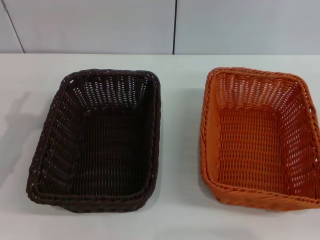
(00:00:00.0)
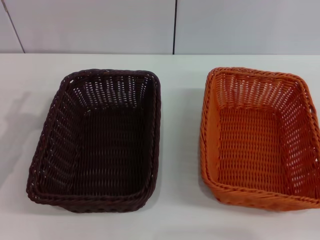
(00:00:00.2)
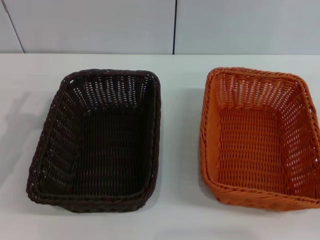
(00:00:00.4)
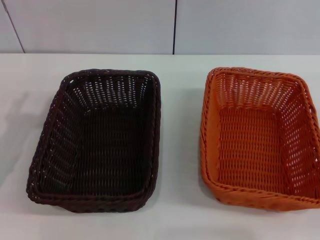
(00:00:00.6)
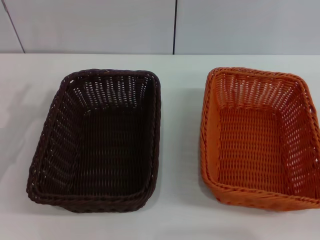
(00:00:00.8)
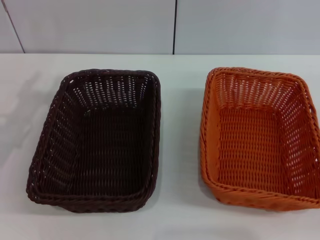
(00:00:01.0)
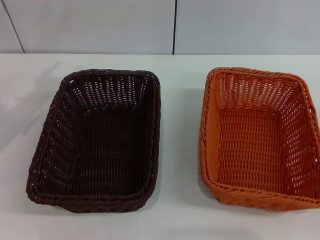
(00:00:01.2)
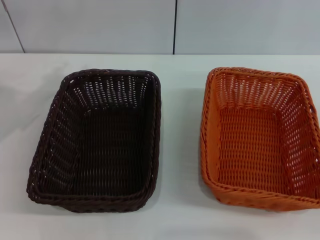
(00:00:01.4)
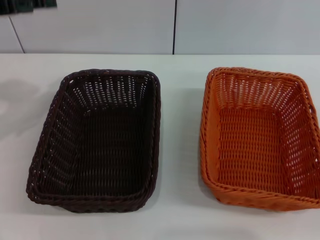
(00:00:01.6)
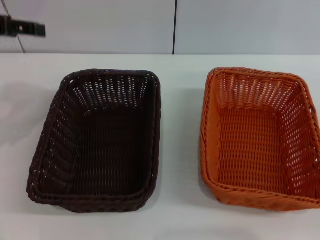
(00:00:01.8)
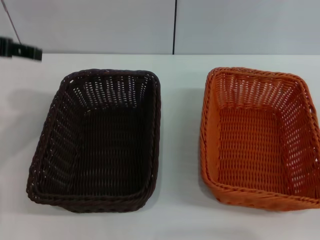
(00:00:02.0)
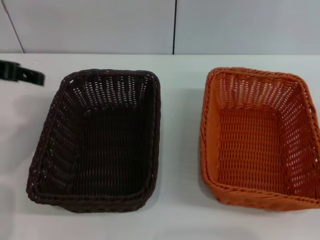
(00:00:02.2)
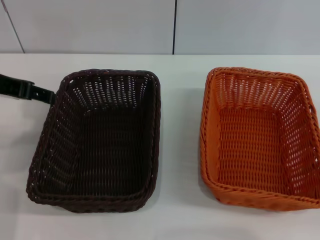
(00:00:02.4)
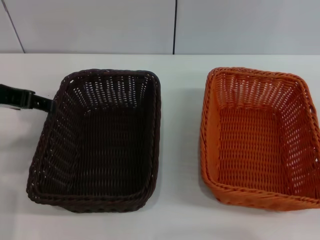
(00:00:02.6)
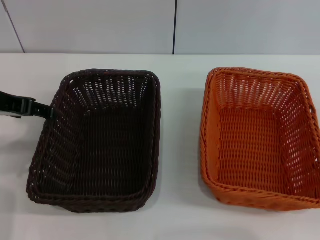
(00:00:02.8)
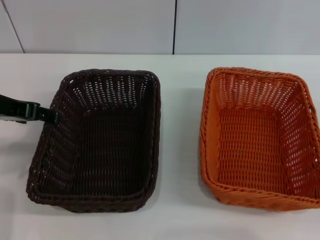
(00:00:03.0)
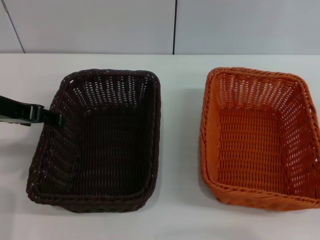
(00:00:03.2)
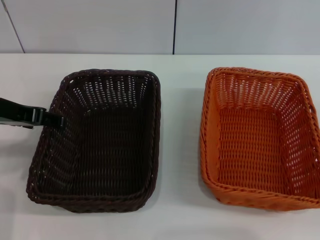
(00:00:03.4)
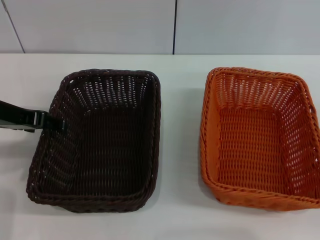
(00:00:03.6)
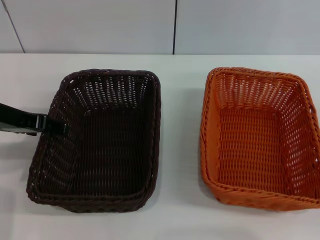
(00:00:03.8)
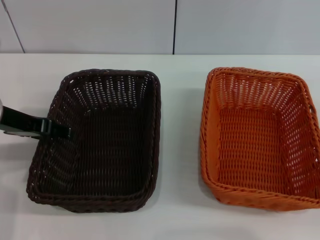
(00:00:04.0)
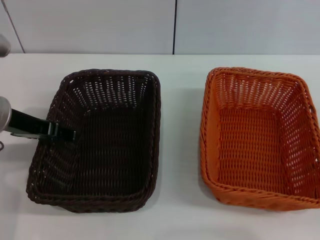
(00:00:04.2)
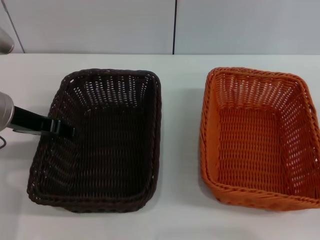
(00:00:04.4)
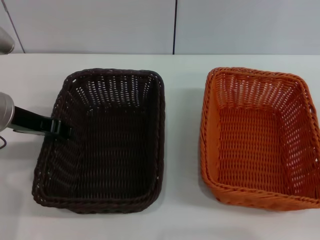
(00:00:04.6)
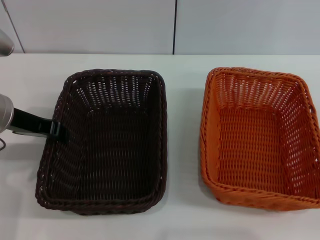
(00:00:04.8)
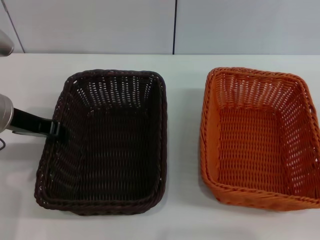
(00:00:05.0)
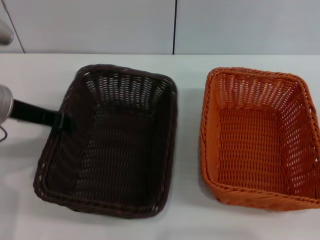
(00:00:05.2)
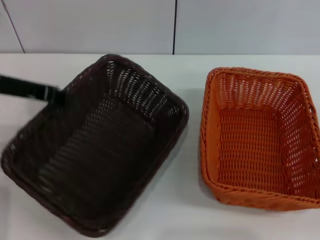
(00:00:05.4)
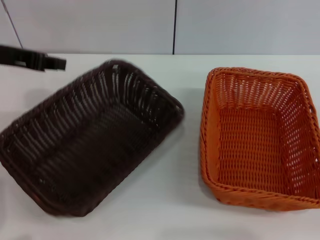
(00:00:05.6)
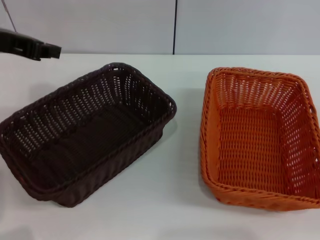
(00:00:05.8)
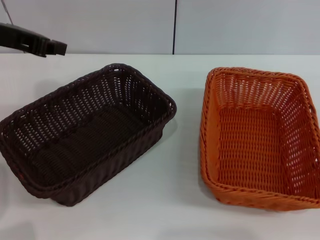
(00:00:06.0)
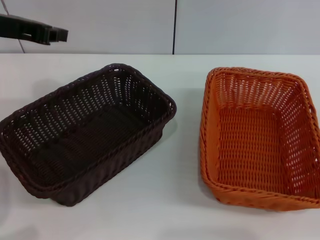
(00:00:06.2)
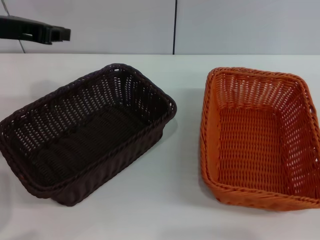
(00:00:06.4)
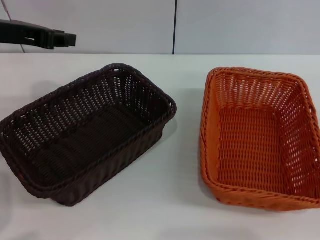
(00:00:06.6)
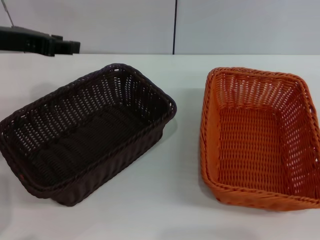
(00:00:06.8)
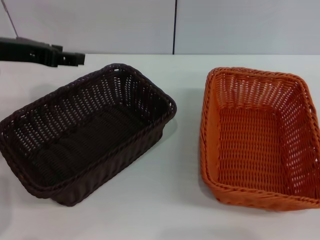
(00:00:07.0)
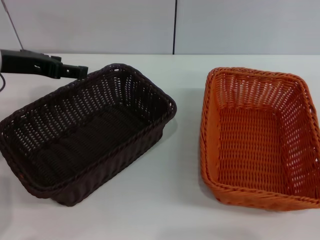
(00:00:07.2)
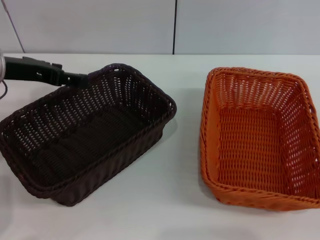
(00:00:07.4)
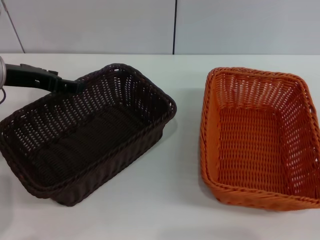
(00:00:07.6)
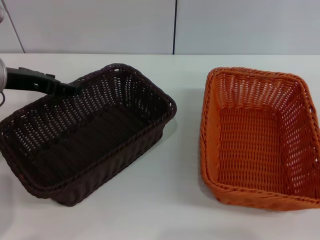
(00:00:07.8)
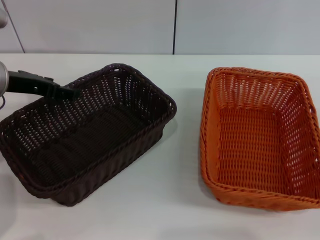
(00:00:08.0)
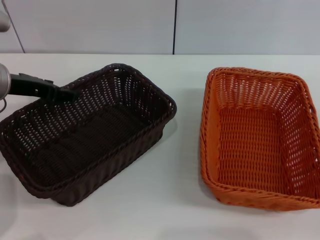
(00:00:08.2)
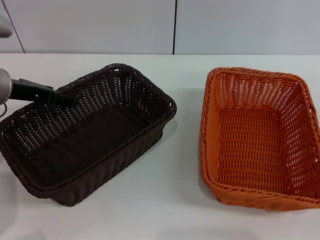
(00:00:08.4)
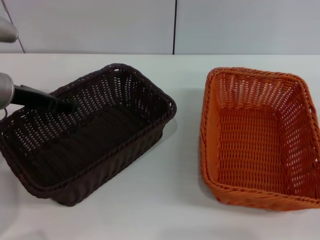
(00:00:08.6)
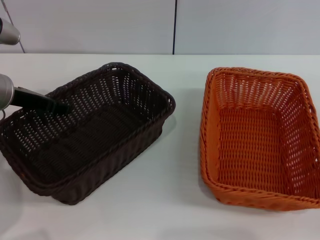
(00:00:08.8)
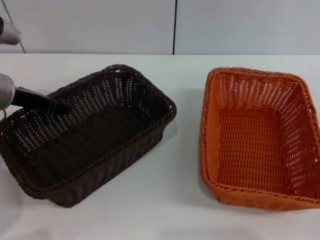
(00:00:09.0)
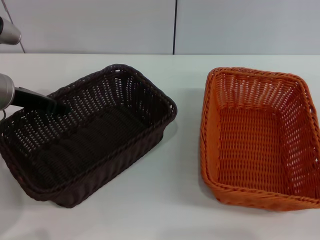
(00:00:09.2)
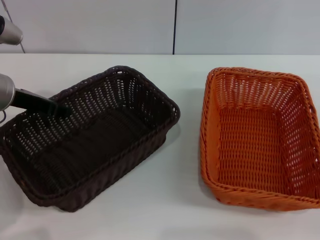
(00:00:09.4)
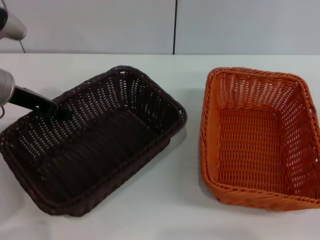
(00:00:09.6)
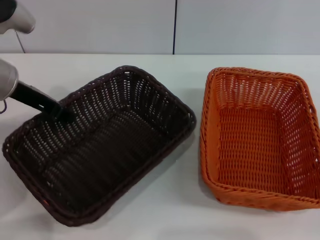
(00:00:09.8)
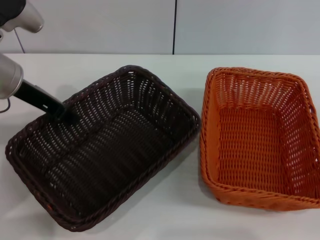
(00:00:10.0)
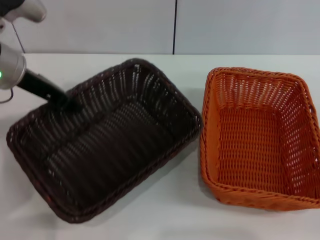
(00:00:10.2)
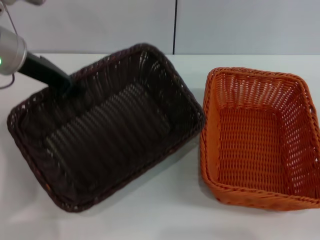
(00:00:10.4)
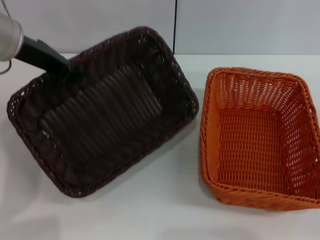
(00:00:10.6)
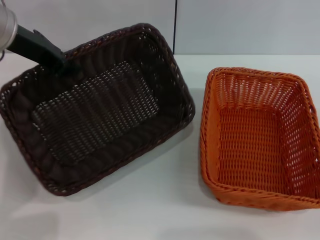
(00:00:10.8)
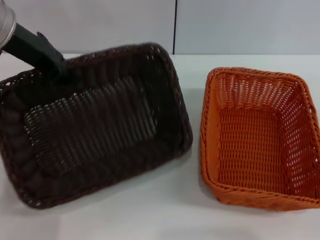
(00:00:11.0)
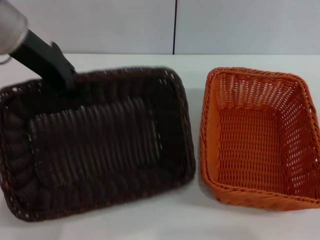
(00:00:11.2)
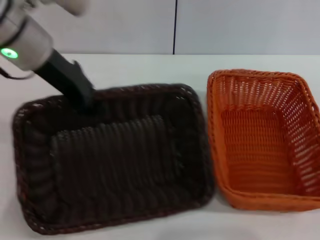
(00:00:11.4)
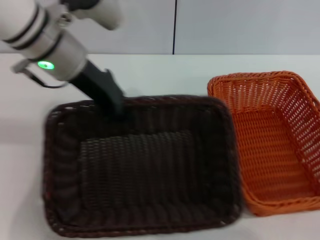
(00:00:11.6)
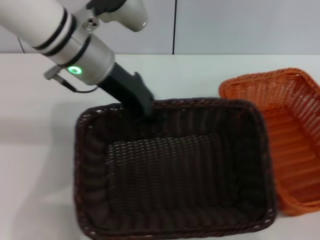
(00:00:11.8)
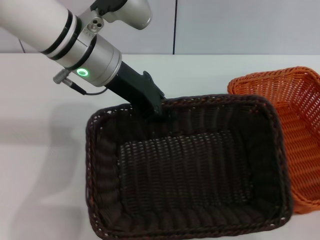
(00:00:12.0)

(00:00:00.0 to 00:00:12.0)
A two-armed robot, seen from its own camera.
Step, 00:00:00.0 - 00:00:10.2: Pick up the dark basket with the left gripper.
00:00:00.0 - 00:00:01.6: The left gripper travels upward and forward by about 15 cm.
00:00:01.6 - 00:00:03.0: The left gripper is displaced backward and to the right by some 5 cm.
00:00:03.0 - 00:00:04.4: The grippers stay close to where they were, moving slightly.
00:00:04.4 - 00:00:06.0: The left gripper travels upward by approximately 10 cm, and closes up.
00:00:06.0 - 00:00:07.6: The left gripper travels downward by some 10 cm, and opens.
00:00:07.6 - 00:00:09.0: The left gripper closes up.
00:00:09.0 - 00:00:10.4: The left gripper shifts approximately 10 cm upward, and closes up.
00:00:10.4 - 00:00:12.0: The left gripper heads to the right, covering some 10 cm.

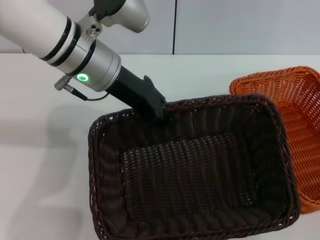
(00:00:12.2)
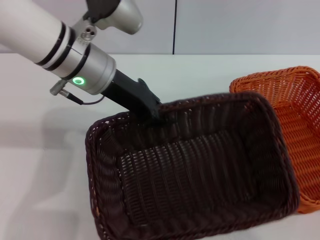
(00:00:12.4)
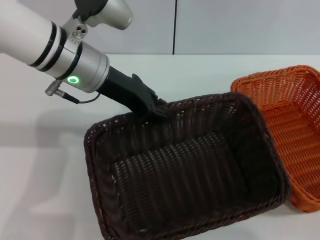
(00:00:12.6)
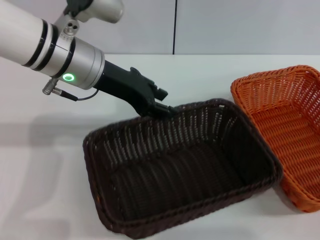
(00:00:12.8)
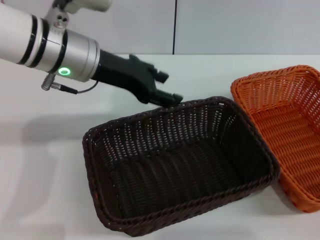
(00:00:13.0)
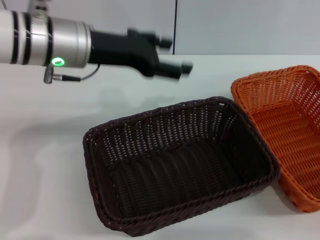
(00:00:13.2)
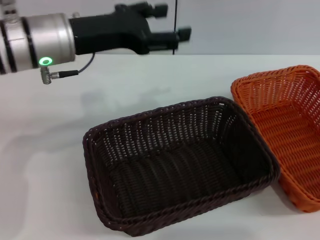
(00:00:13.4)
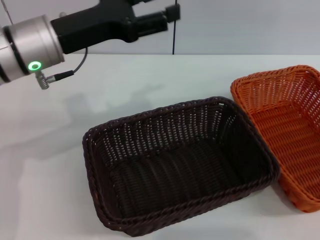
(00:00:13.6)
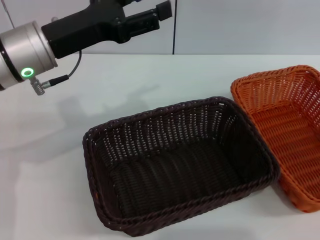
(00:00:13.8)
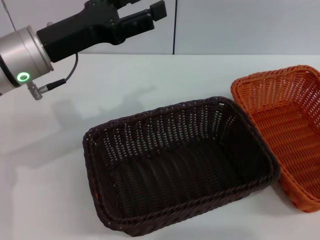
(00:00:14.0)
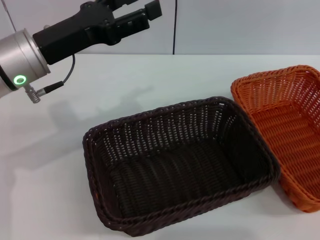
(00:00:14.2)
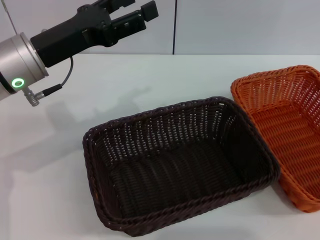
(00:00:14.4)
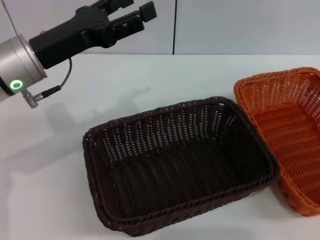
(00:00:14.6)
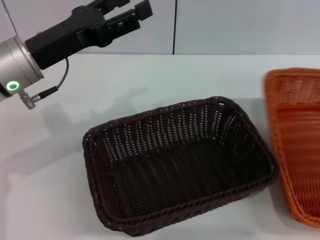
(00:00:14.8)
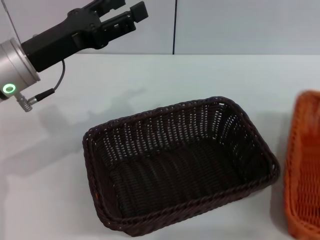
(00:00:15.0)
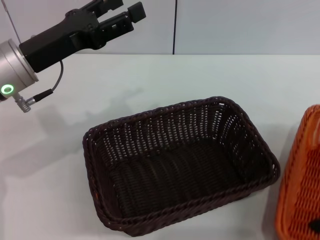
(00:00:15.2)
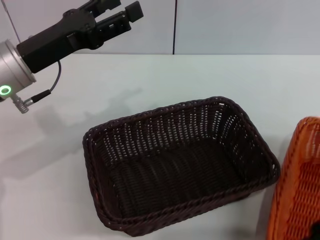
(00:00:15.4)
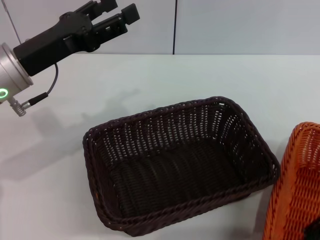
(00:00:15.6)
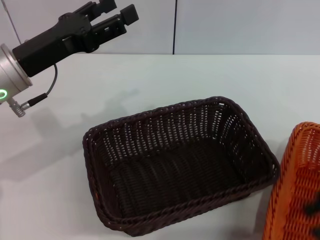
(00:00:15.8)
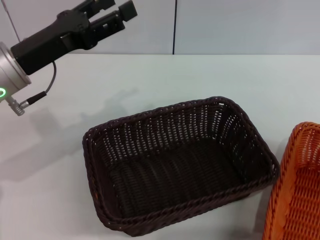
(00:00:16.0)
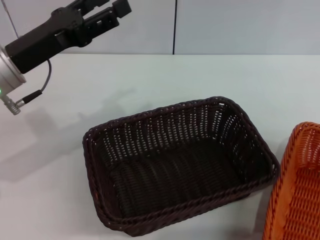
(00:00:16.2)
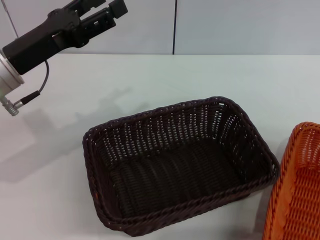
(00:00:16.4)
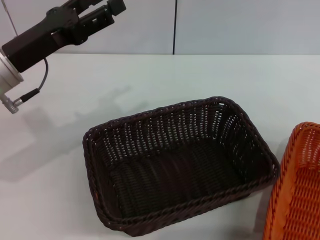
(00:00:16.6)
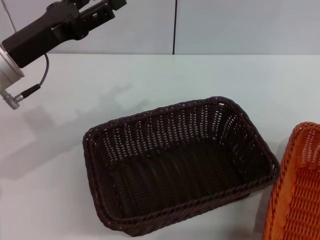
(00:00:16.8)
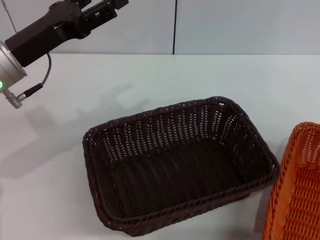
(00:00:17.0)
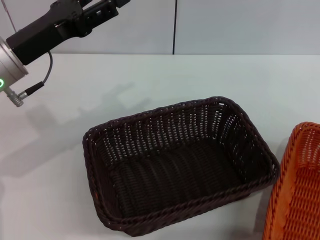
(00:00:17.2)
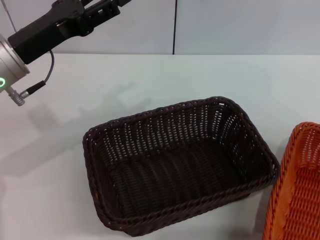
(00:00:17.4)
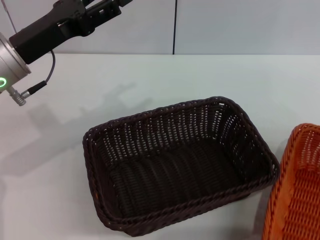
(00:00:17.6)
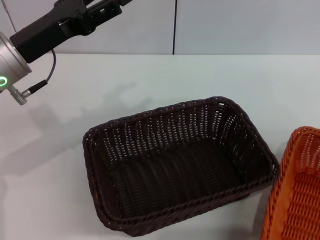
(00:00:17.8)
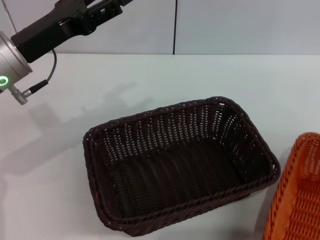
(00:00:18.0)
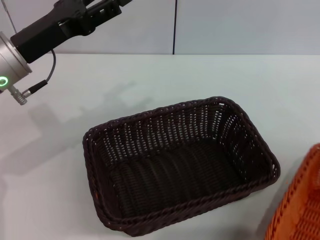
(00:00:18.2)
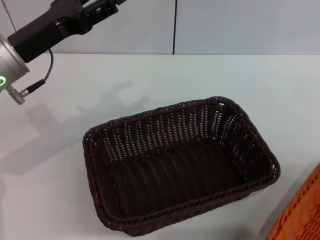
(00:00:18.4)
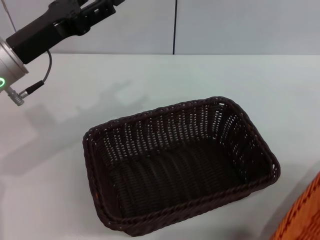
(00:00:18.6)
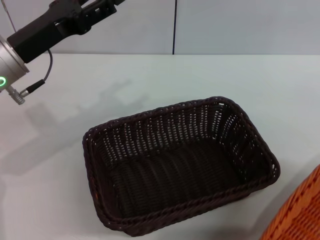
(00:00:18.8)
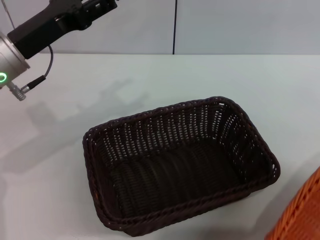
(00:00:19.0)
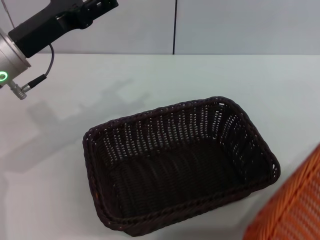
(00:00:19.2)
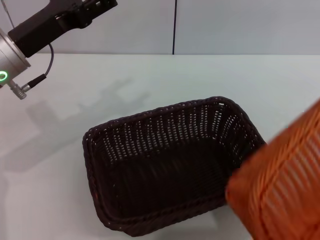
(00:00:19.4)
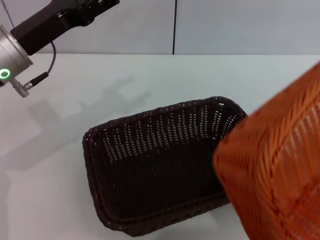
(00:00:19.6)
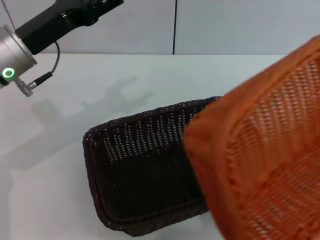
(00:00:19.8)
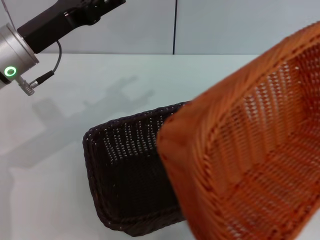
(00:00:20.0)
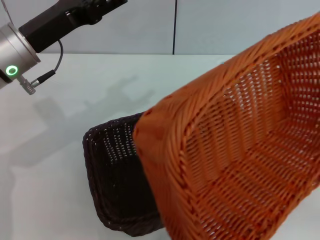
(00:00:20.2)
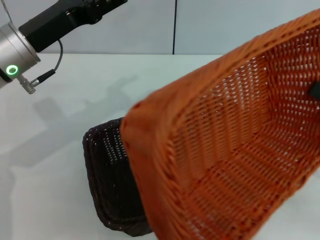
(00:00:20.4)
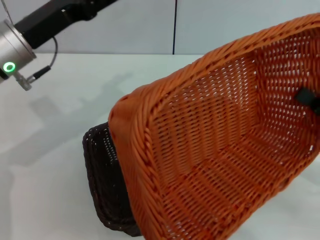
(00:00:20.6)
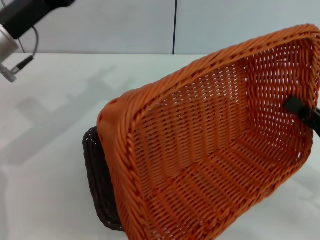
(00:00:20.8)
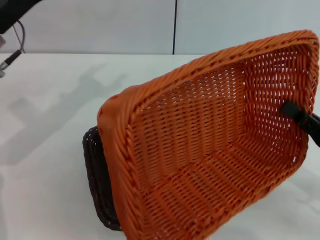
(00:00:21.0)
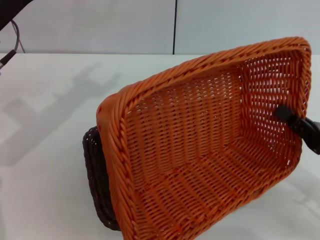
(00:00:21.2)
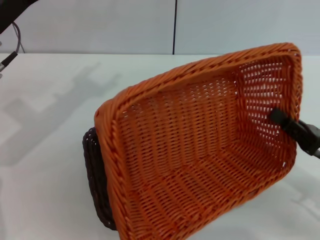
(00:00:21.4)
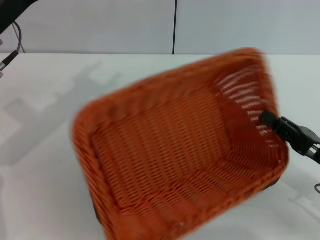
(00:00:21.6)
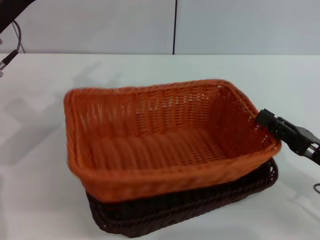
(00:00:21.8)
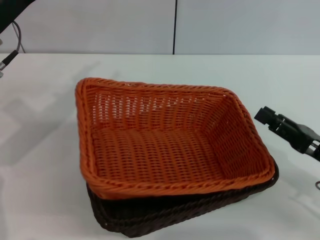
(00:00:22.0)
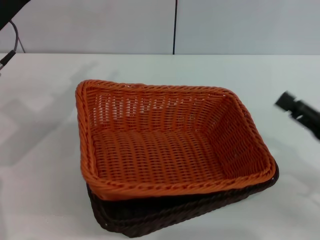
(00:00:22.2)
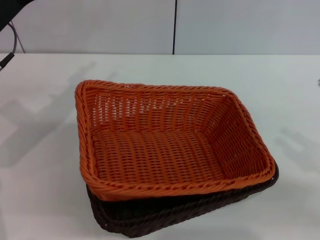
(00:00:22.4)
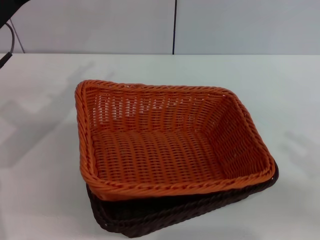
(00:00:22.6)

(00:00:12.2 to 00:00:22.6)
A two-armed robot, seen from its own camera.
Step, 00:00:13.0 - 00:00:18.6: Pick up the light basket with the right gripper.
Step, 00:00:18.8 - 00:00:22.0: Place the light basket on the dark basket with the right gripper.
00:00:12.2 - 00:00:13.6: The left gripper moves to the left, about 5 cm, and opens up. The right gripper moves upward, some 15 cm.
00:00:13.6 - 00:00:15.2: The left gripper moves about 5 cm. The right gripper is displaced to the left by approximately 10 cm.
00:00:15.2 - 00:00:16.6: The right gripper moves upward and to the right, about 10 cm.
00:00:16.6 - 00:00:18.2: The right gripper goes roughly 5 cm downward, and closes its fingers.
00:00:18.2 - 00:00:19.6: The right gripper goes about 5 cm backward.
00:00:19.6 - 00:00:21.2: The right gripper is displaced to the left and downward by approximately 20 cm.
00:00:21.2 - 00:00:22.6: The right gripper shifts roughly 5 cm to the right and upward, and opens its fingers.
